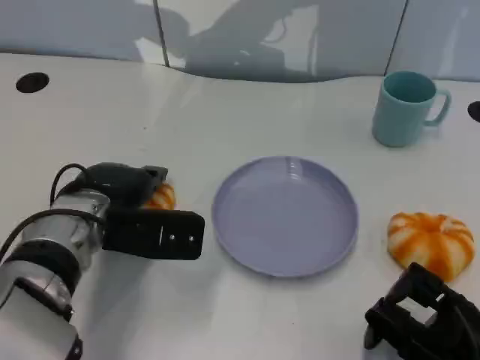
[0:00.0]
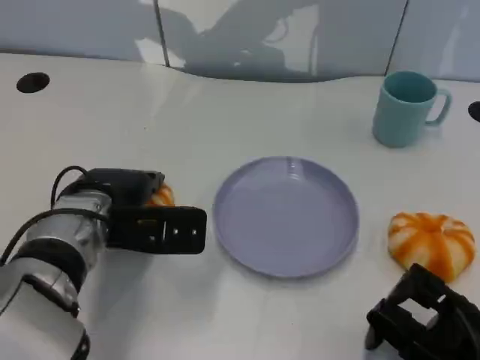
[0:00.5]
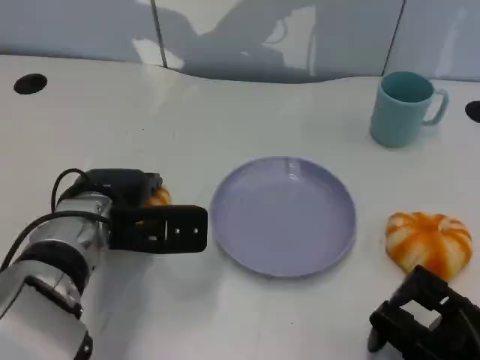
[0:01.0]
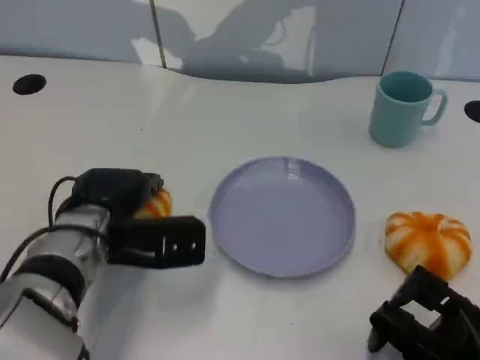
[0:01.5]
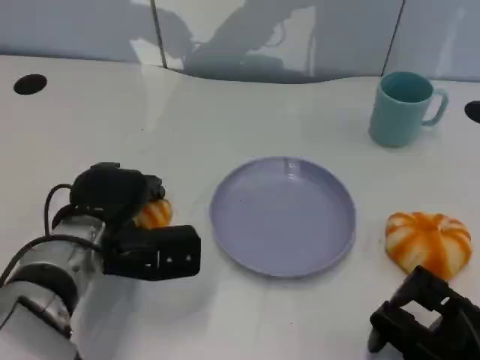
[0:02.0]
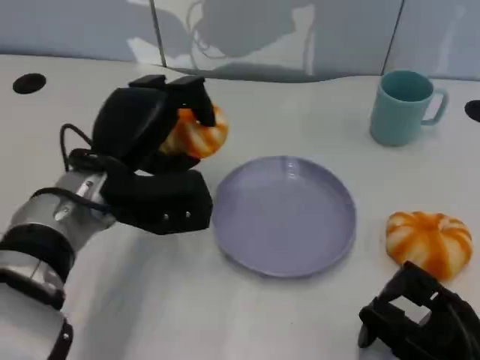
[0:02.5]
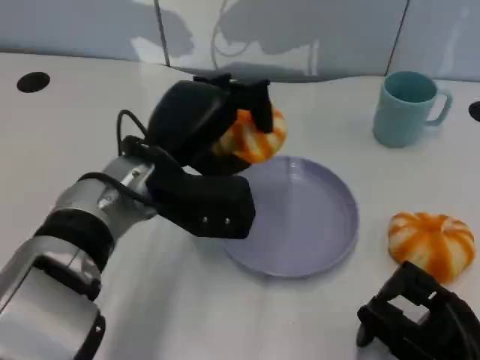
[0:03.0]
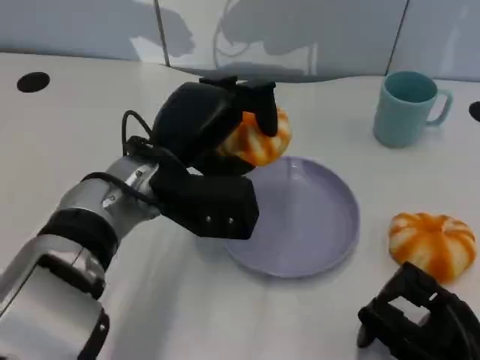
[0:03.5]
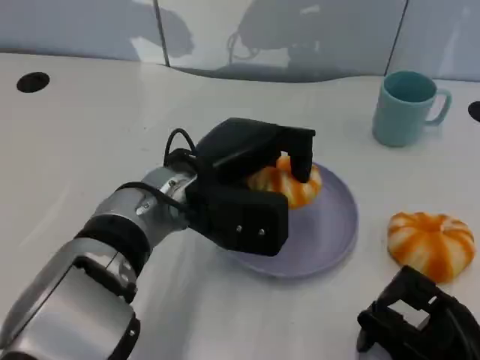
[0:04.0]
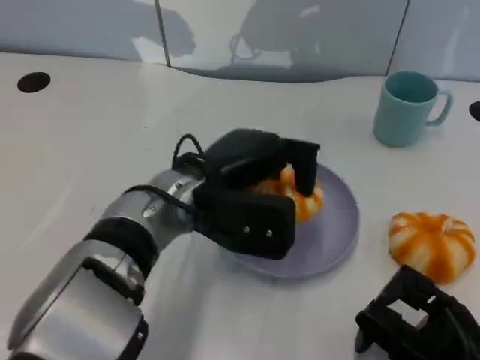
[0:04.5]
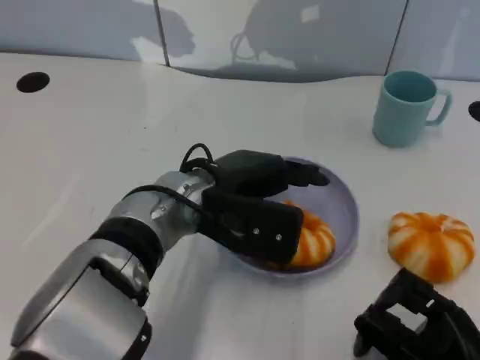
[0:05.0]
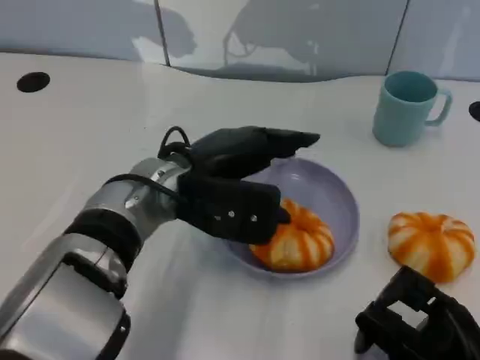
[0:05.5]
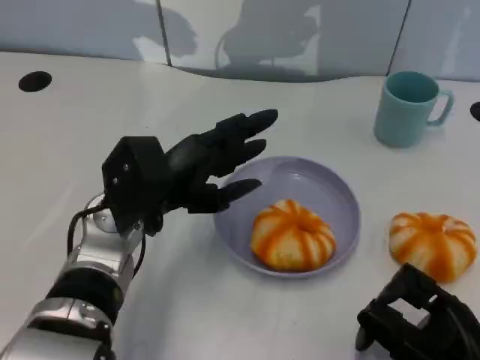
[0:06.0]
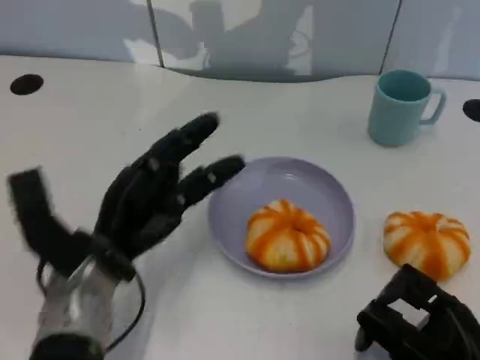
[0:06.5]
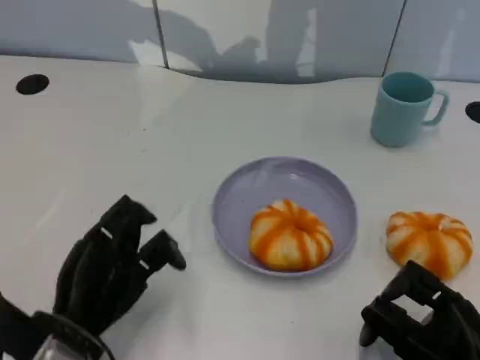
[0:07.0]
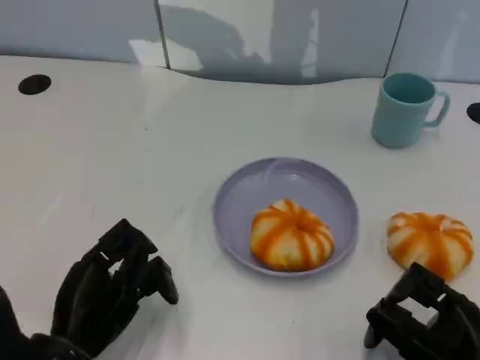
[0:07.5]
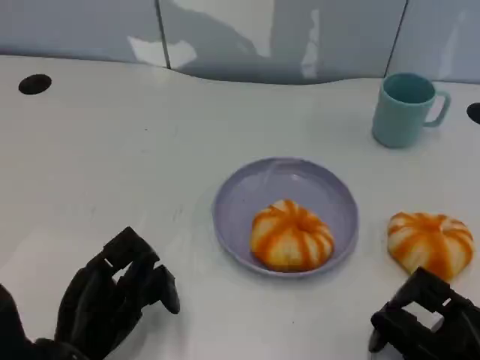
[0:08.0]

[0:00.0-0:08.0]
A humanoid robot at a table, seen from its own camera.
Task of the whole recording: Grasp the bread from the table and place it into the plate.
0:02.0 to 0:04.0: The left hand is displaced to the right and upward by about 10 cm.
0:04.0 to 0:06.0: The left hand travels to the left by about 5 cm.
0:06.0 to 0:08.0: The left hand moves backward, downward and to the left, roughly 15 cm.

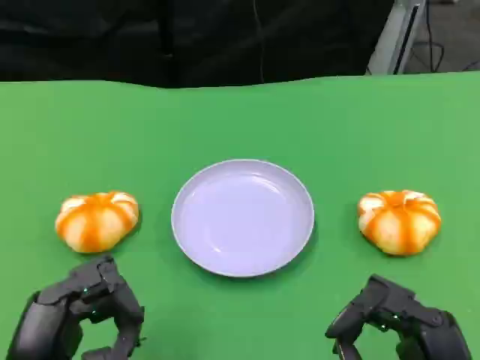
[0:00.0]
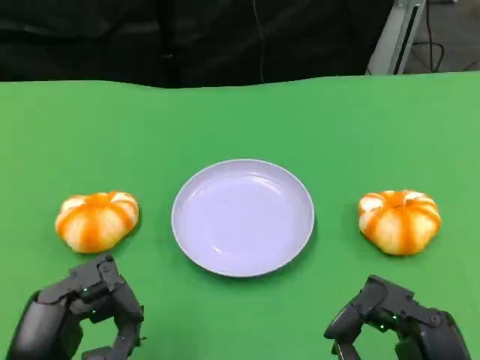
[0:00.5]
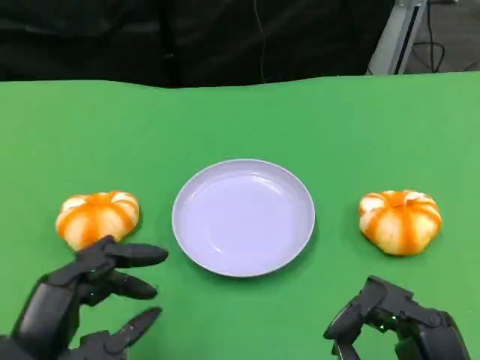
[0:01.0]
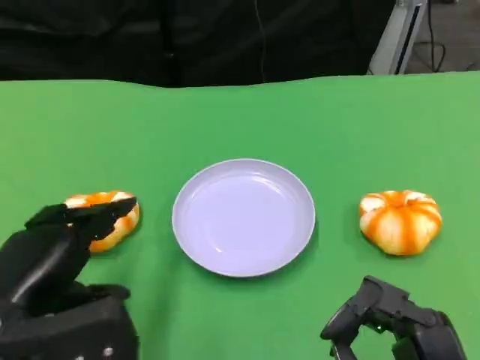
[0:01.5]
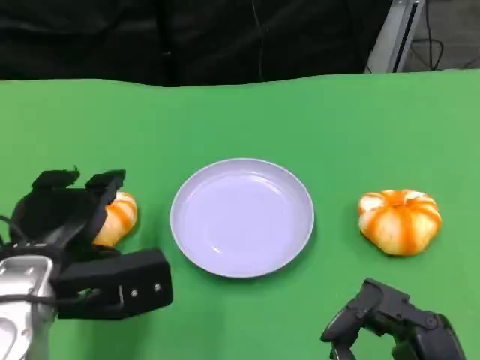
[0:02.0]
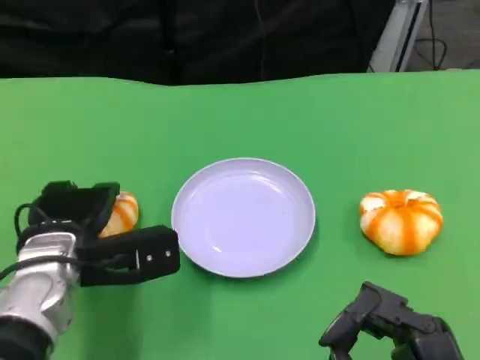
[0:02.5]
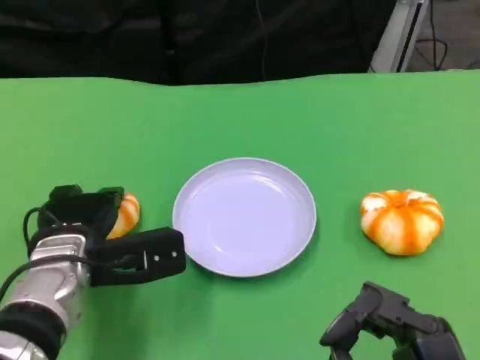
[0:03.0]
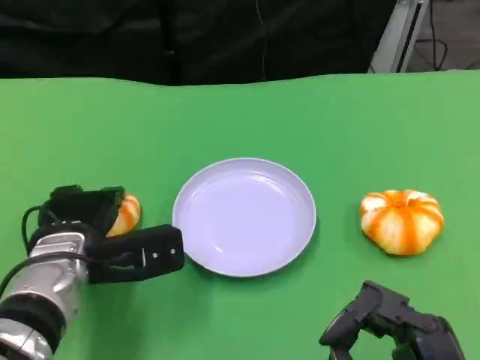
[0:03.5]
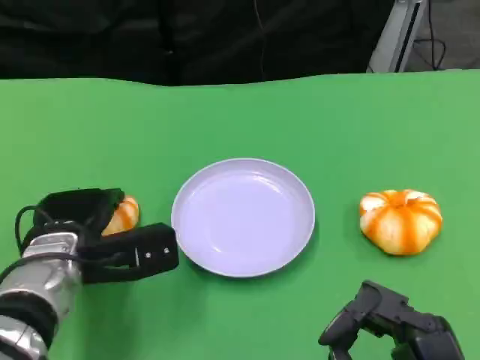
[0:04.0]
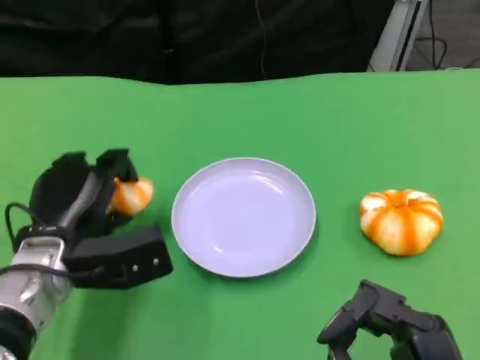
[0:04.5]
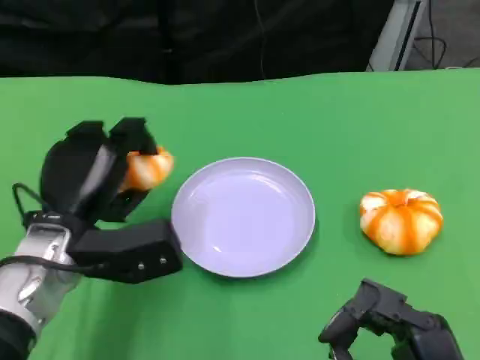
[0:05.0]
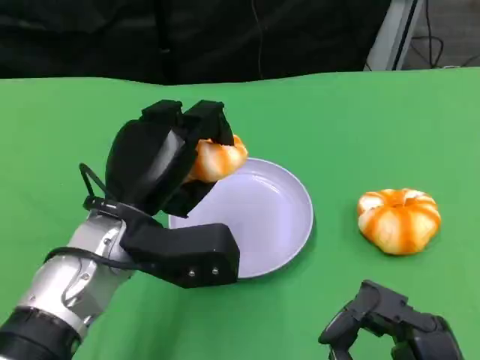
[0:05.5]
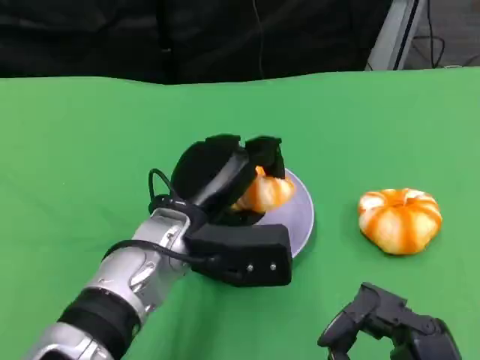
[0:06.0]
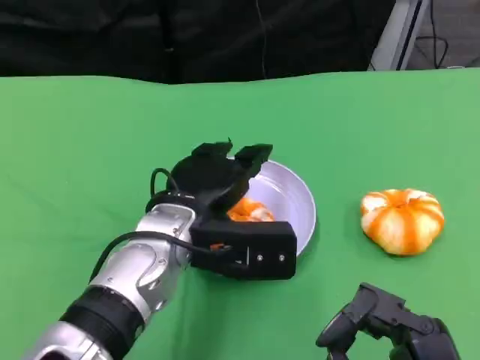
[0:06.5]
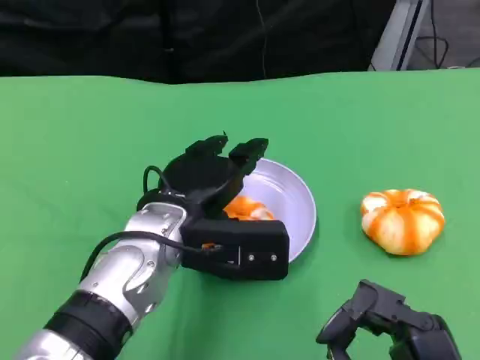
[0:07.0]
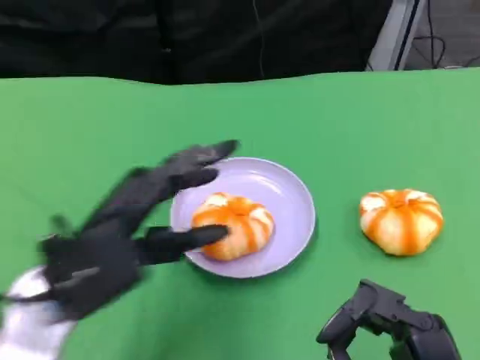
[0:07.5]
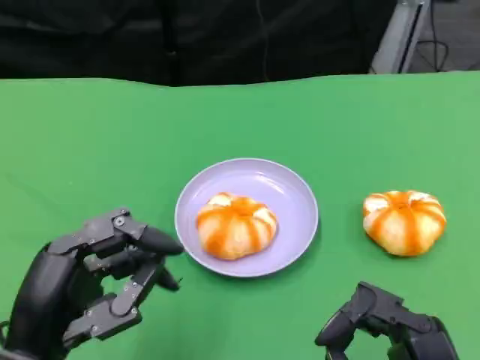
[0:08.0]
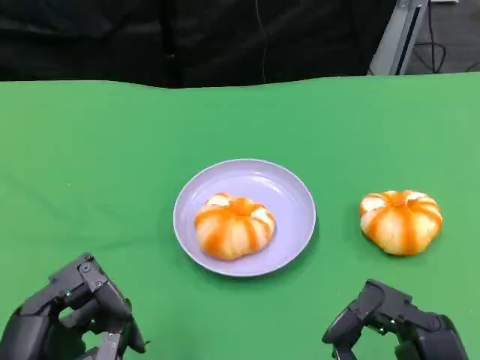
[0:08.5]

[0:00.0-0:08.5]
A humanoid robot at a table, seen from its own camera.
Task of the whole recording: Grasp the bread from the table and place it into the plate.
0:00.0 to 0:02.0: The left hand moves forward, about 10 cm.
0:02.0 to 0:04.0: The left hand heads downward, covering about 5 cm.
0:04.0 to 0:06.5: The left hand is displaced to the right and upward by about 15 cm.
0:06.5 to 0:08.5: The left hand moves backward and to the left, about 20 cm.

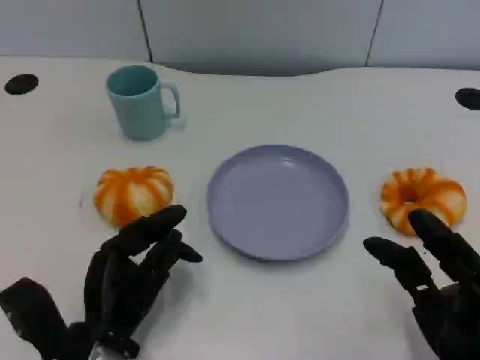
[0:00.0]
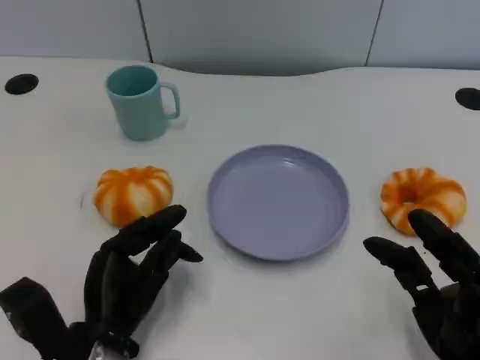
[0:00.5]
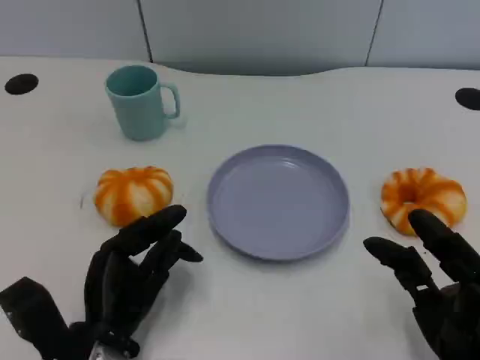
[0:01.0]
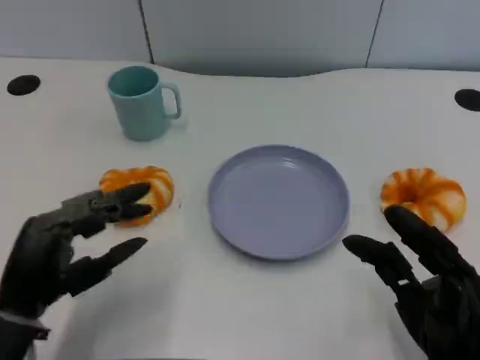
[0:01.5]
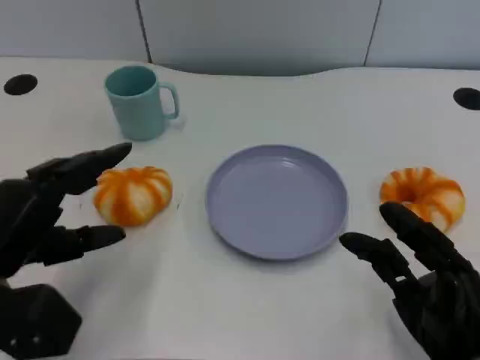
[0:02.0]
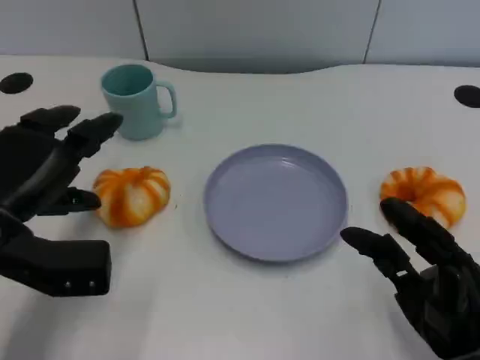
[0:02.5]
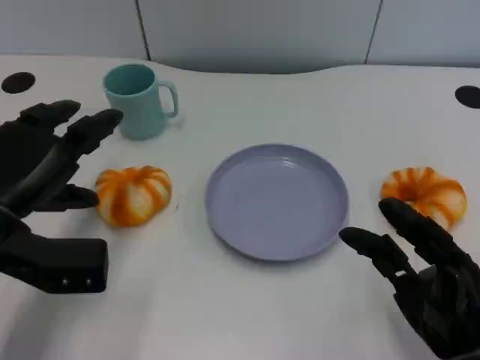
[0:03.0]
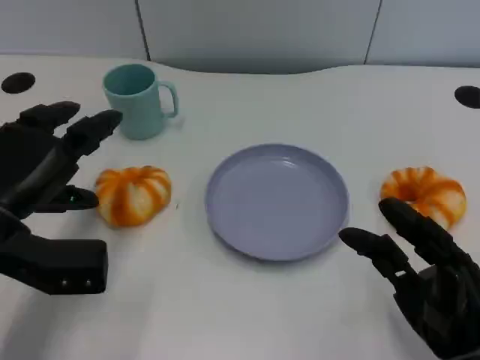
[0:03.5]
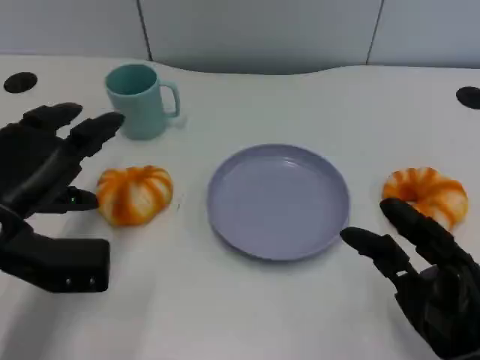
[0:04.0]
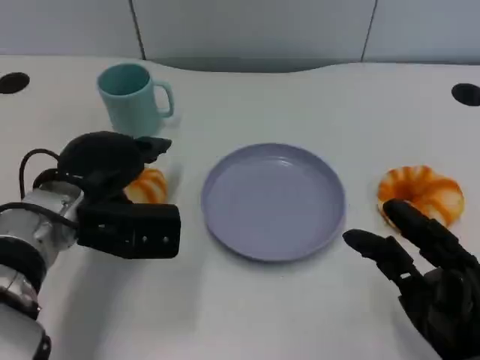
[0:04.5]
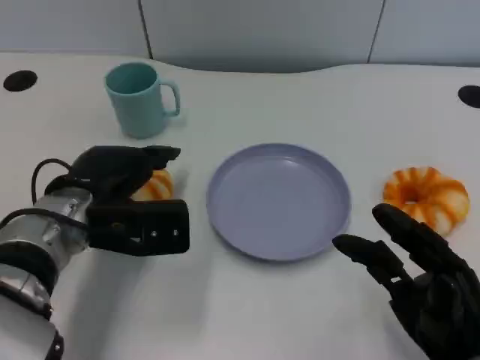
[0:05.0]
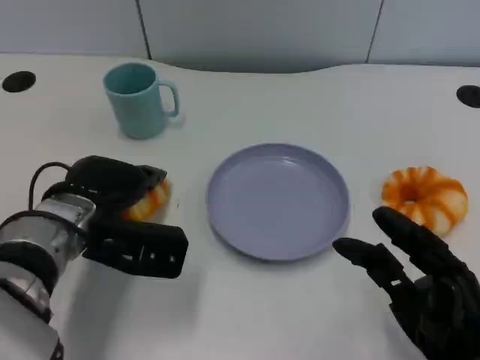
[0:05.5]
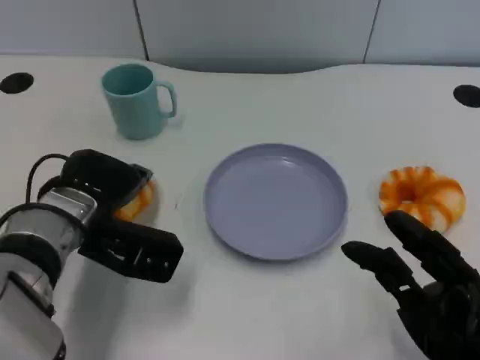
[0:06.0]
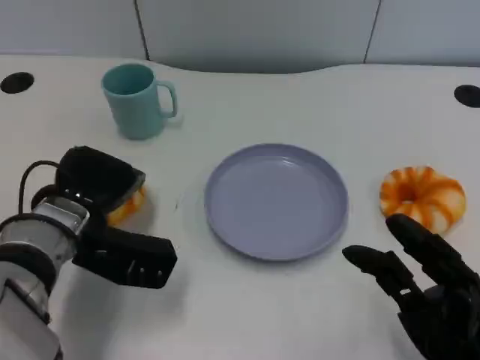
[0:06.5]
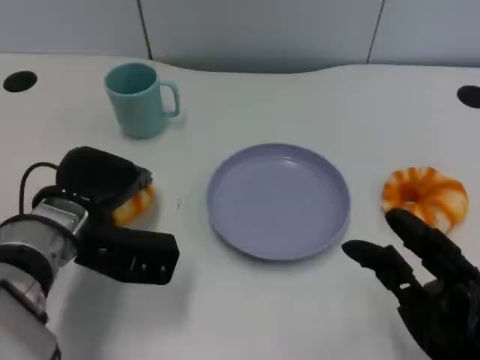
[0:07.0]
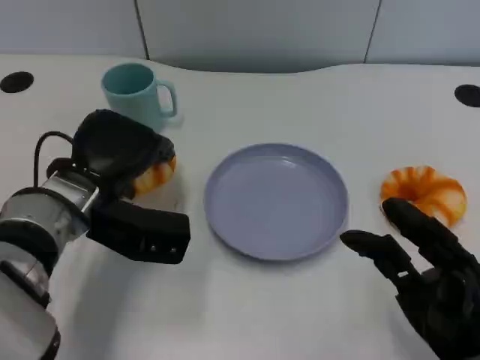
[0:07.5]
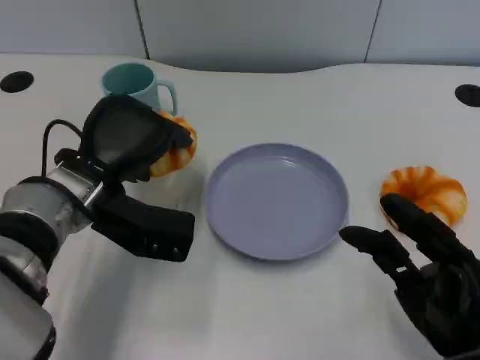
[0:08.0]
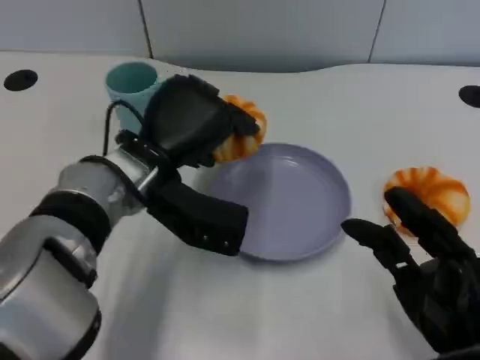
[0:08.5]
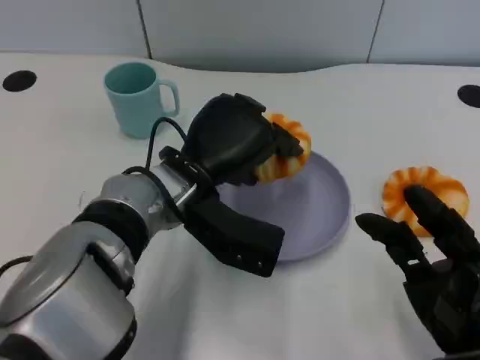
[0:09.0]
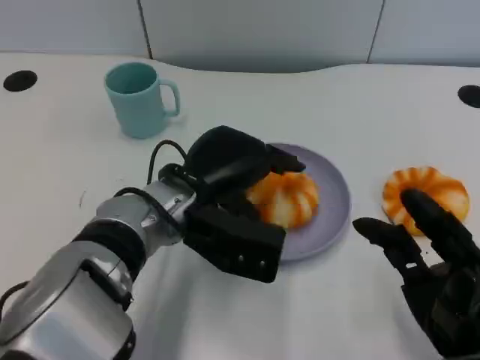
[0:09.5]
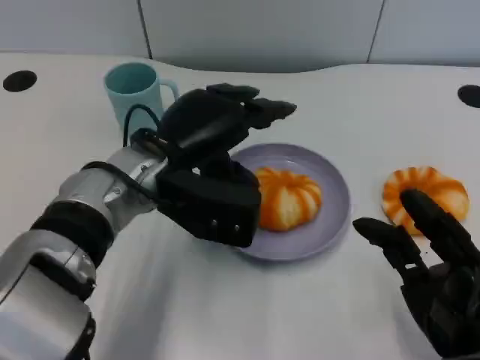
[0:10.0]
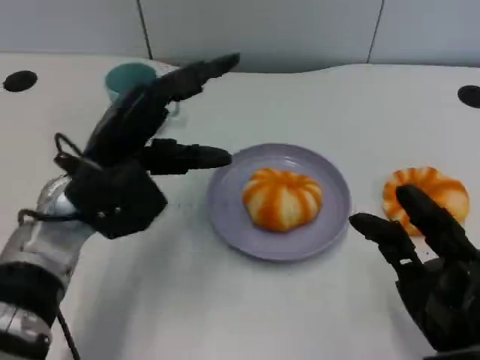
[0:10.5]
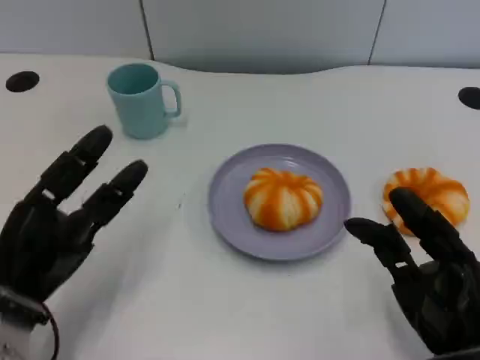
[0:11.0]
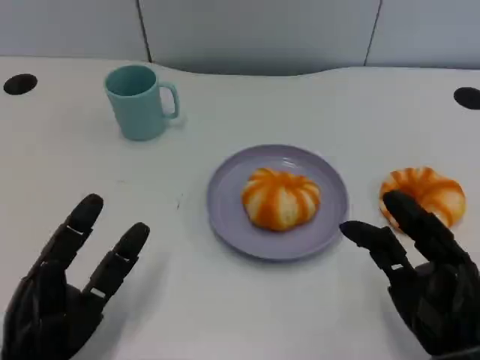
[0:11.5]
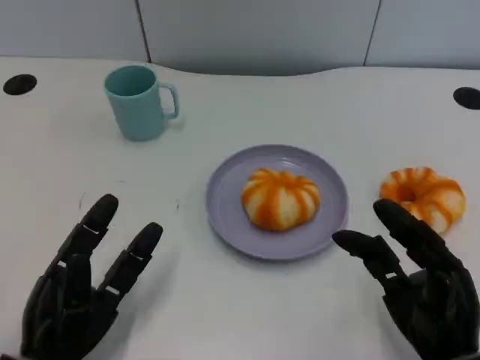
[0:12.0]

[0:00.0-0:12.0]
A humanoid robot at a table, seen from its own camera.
Task of the whole recording: Grasp the bread from the table and place it into the plate.
0:00.0 to 0:02.0: The left hand moves upward and to the left, about 15 cm.
0:02.0 to 0:04.0: The left hand moves forward, roughly 5 cm.
0:04.0 to 0:06.0: The left hand is displaced to the right by roughly 5 cm.
0:08.0 to 0:10.0: The left hand travels to the right by roughly 5 cm.
0:10.0 to 0:12.0: The left hand moves backward, downward and to the left, some 25 cm.
